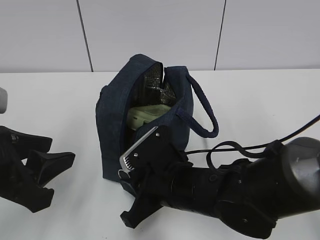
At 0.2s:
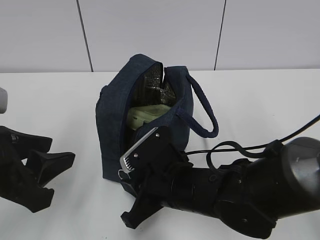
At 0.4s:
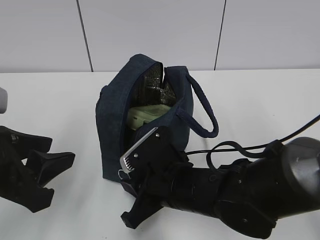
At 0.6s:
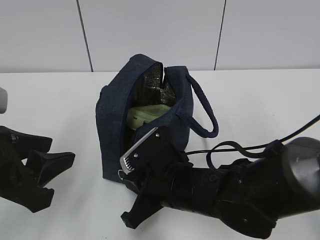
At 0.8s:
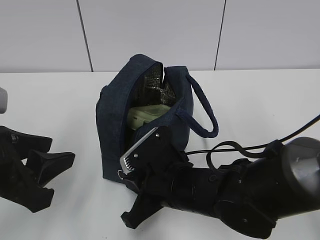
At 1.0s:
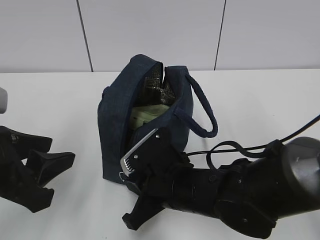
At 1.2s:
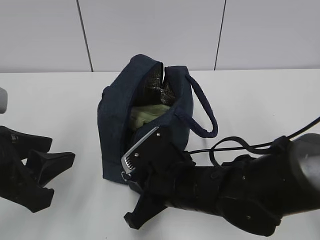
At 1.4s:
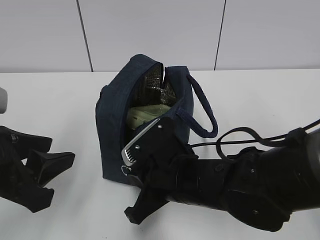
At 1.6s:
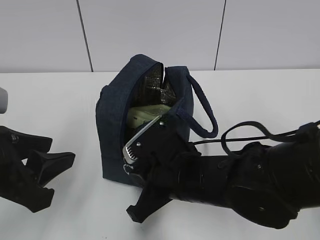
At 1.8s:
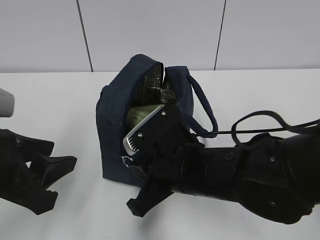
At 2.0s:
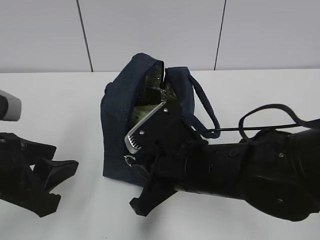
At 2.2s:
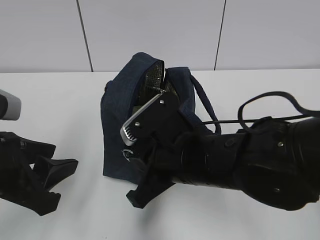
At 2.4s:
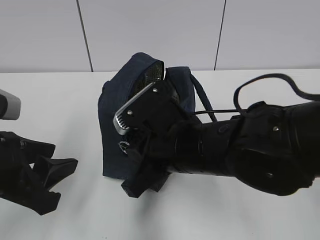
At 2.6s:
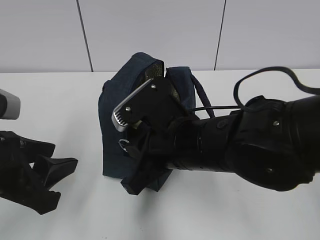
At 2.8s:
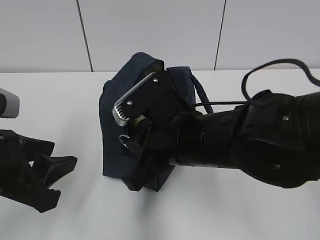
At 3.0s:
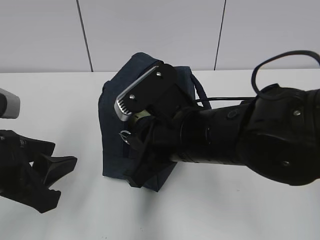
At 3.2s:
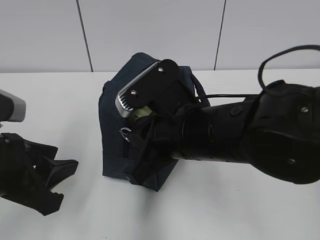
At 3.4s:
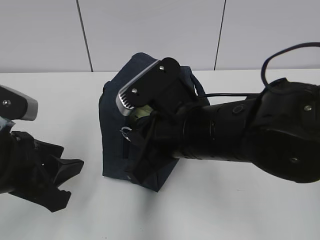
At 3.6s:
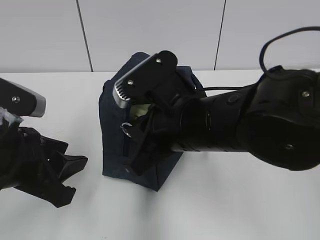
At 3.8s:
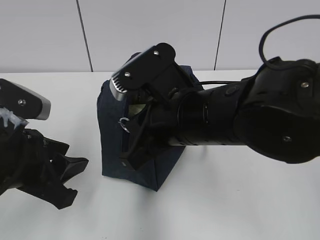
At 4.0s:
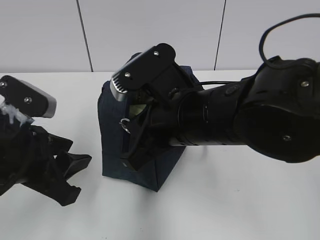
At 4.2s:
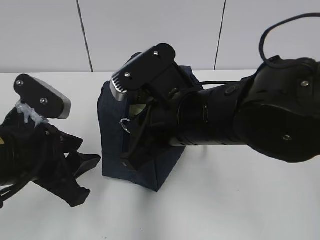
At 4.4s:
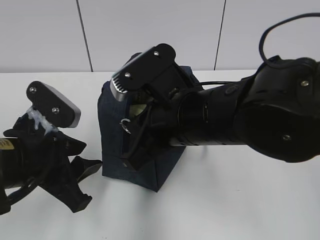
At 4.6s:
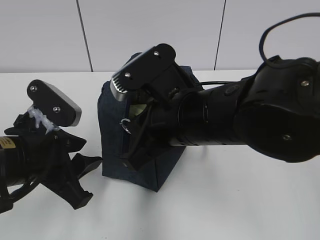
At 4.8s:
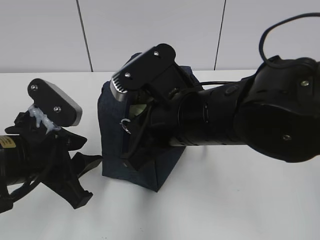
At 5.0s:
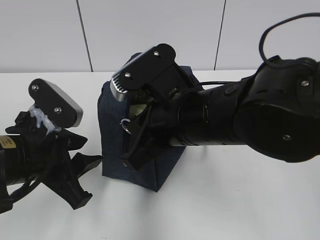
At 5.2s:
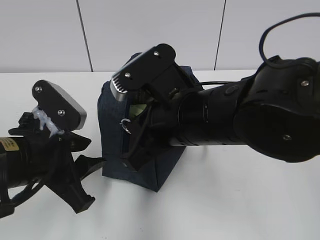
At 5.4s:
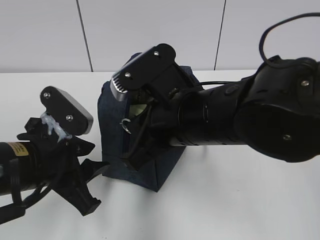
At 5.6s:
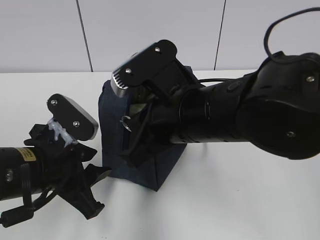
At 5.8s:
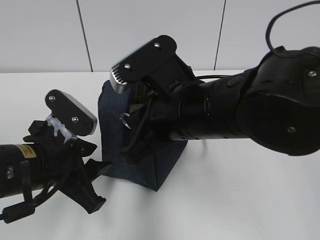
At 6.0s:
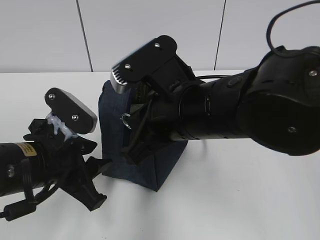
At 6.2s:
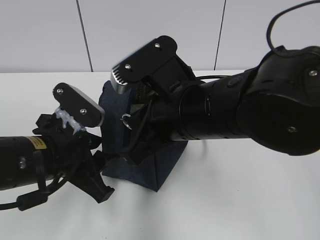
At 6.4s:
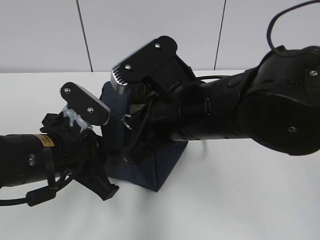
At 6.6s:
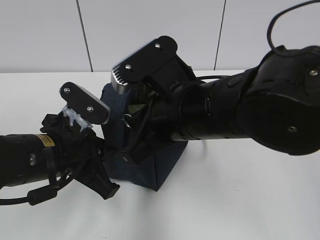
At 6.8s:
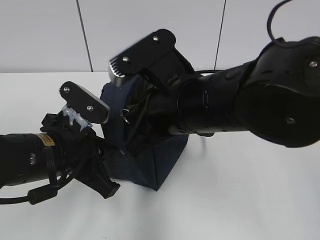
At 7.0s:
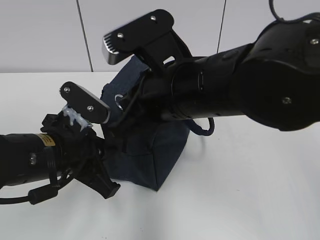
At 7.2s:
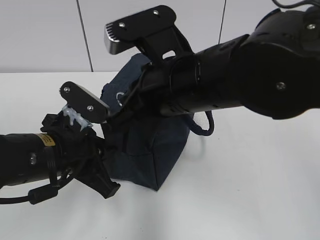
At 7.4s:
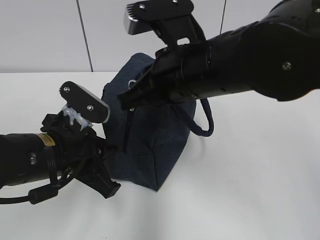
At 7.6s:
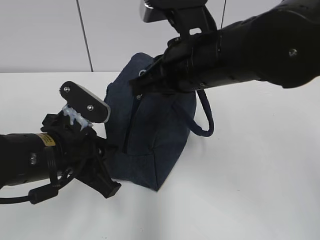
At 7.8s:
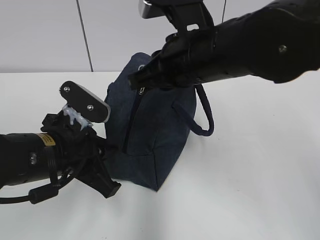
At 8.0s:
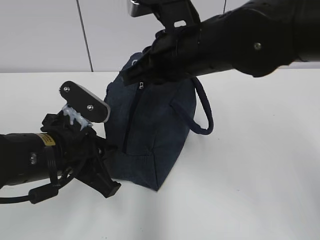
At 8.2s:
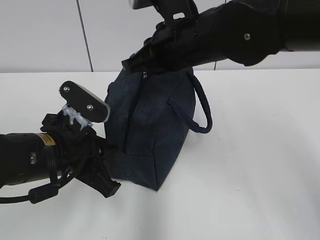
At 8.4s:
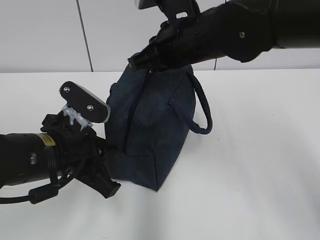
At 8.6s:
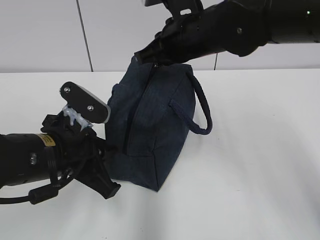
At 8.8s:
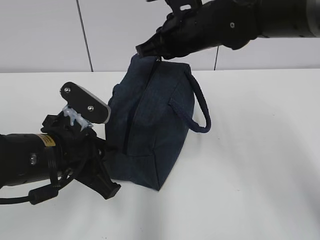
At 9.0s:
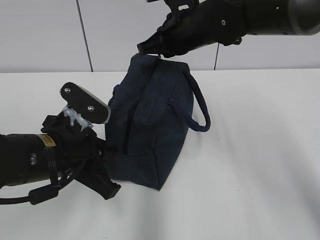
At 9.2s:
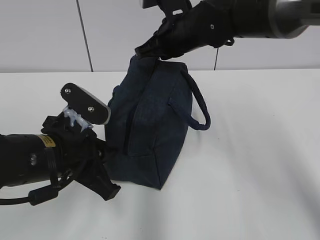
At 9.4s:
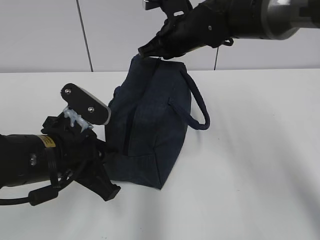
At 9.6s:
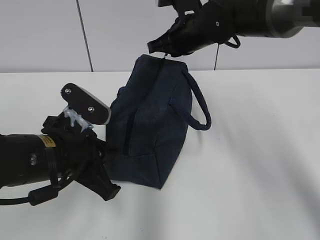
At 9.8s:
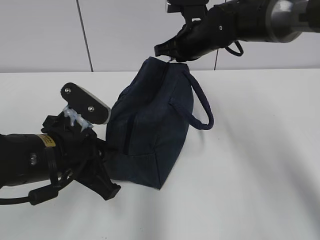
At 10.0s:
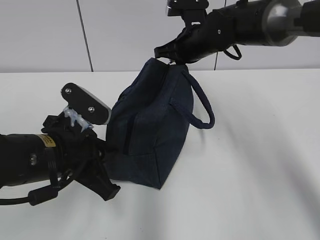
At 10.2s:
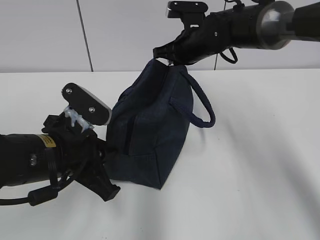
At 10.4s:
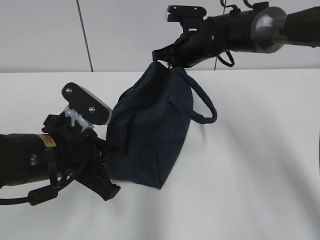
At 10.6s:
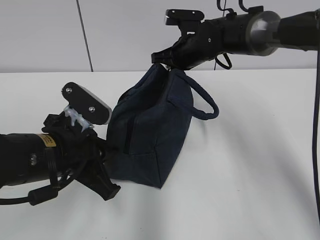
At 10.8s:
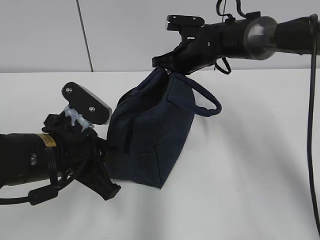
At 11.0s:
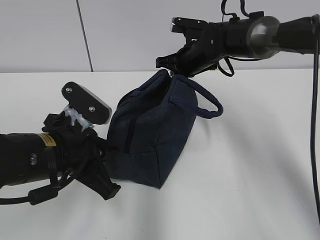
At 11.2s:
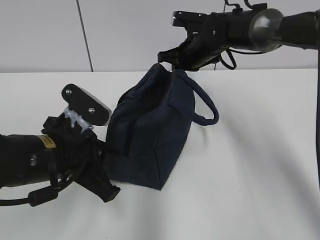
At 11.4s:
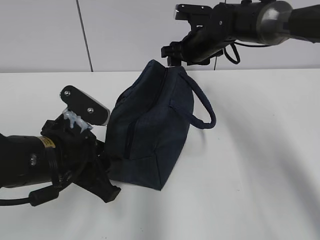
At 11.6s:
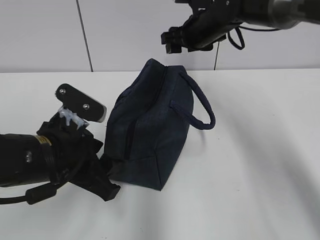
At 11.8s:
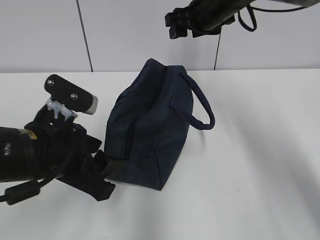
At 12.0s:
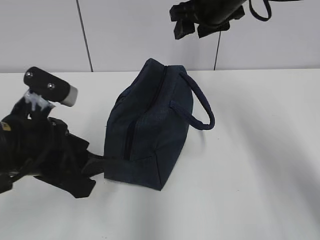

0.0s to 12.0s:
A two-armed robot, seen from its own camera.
0.0s to 1.6s: The grippers stay close to where they were, moving slightly.
1.6s to 3.0s: The right gripper heads upward, covering roughly 10 cm.
3.0s to 4.4s: The left gripper changes place by roughly 5 cm.
4.4s to 6.0s: There are only small adjustments of the grippers.
6.0s to 7.6s: The right gripper shifts by about 5 cm, while the left gripper closes.
7.6s to 9.0s: The right gripper shifts about 15 cm forward.
9.0s to 10.4s: The right gripper heads forward and downward, covering approximately 10 cm.
10.4s to 12.0s: The right gripper is displaced upward by some 10 cm, and opens; the left gripper ends up roughly 5 cm from where it was, and opens.

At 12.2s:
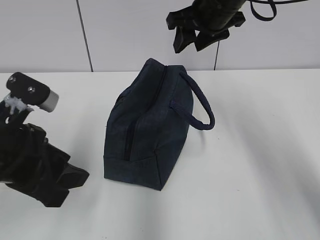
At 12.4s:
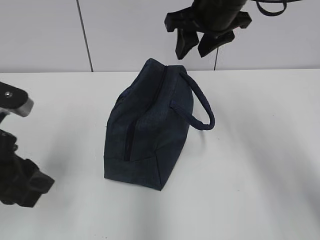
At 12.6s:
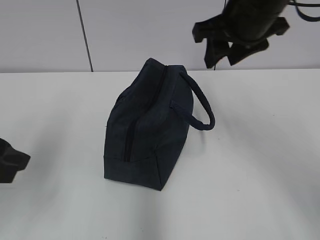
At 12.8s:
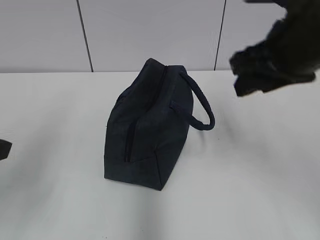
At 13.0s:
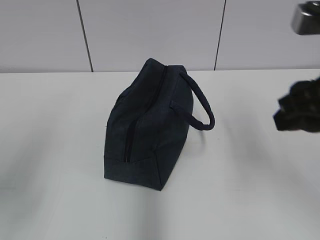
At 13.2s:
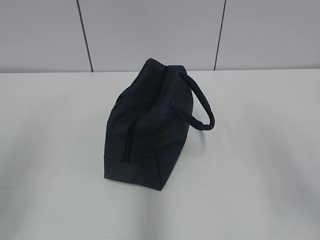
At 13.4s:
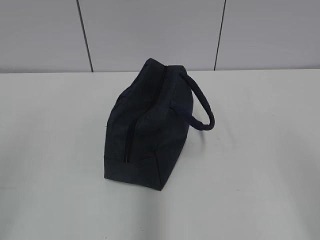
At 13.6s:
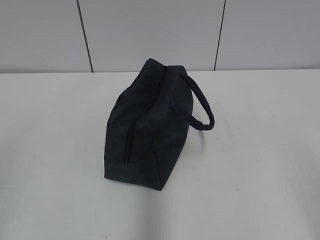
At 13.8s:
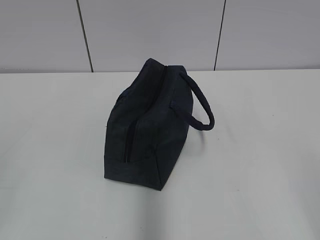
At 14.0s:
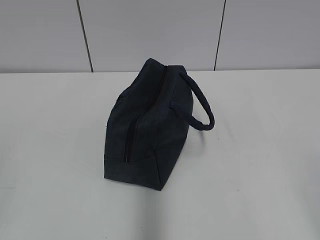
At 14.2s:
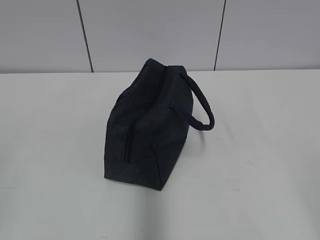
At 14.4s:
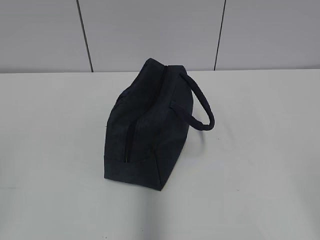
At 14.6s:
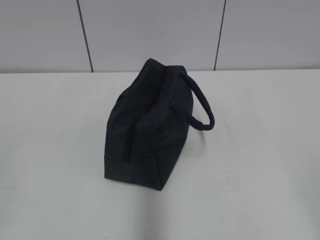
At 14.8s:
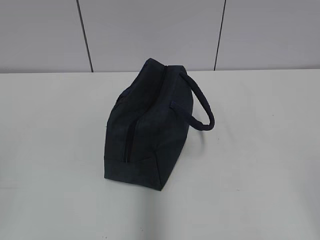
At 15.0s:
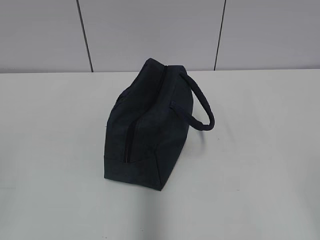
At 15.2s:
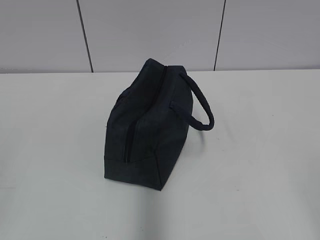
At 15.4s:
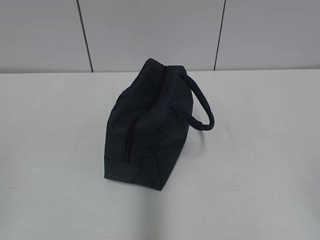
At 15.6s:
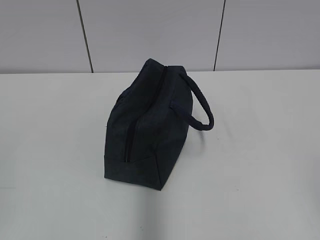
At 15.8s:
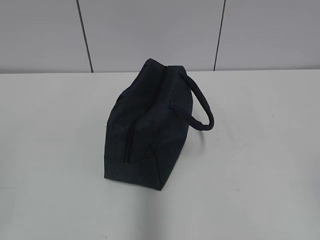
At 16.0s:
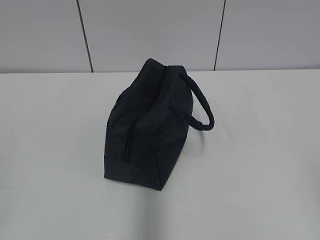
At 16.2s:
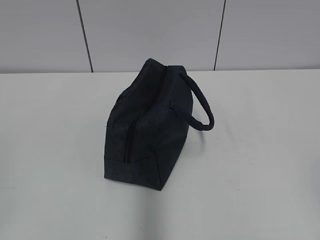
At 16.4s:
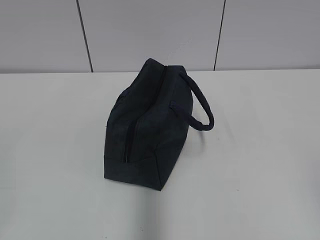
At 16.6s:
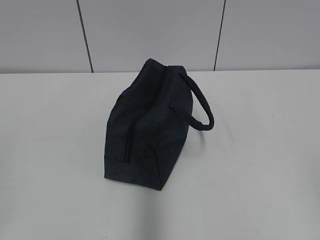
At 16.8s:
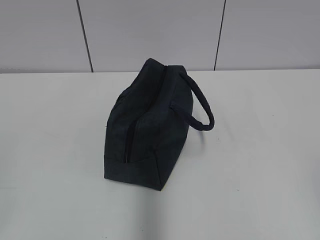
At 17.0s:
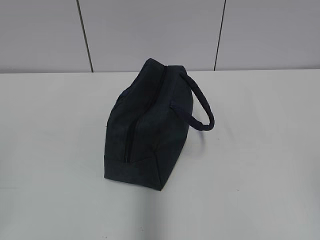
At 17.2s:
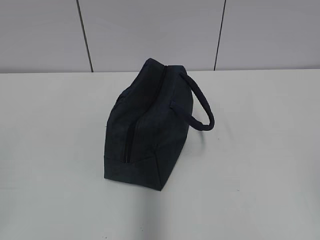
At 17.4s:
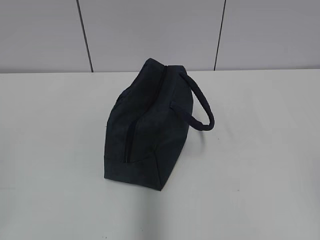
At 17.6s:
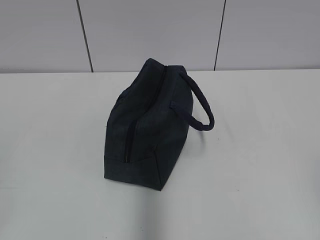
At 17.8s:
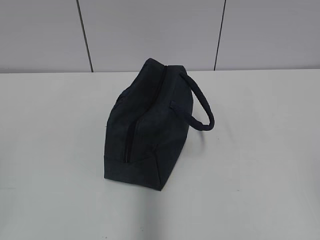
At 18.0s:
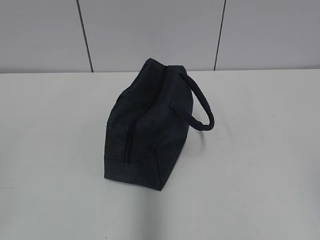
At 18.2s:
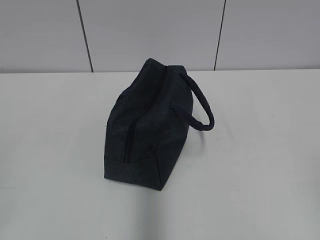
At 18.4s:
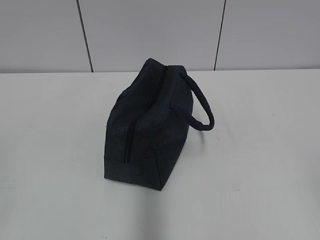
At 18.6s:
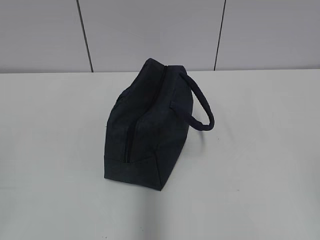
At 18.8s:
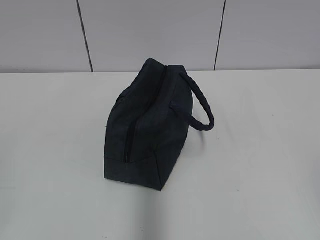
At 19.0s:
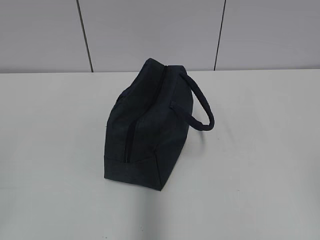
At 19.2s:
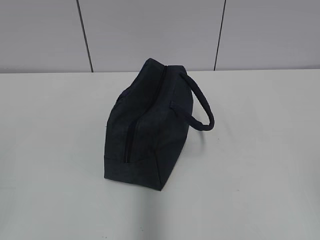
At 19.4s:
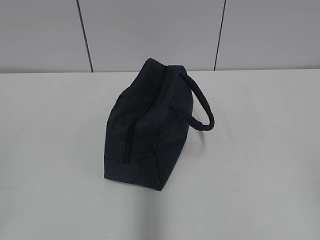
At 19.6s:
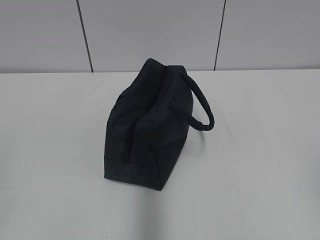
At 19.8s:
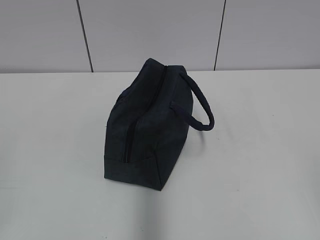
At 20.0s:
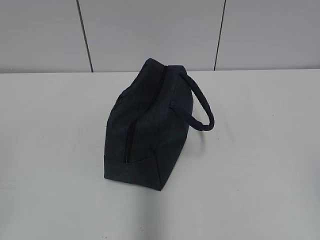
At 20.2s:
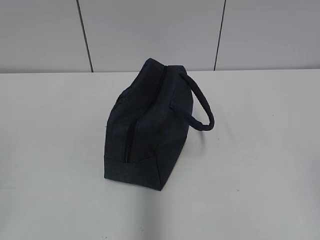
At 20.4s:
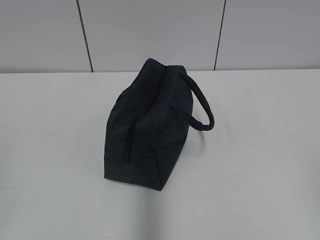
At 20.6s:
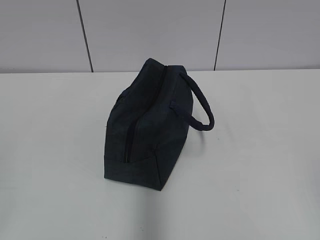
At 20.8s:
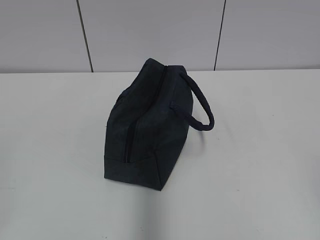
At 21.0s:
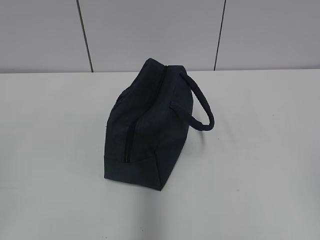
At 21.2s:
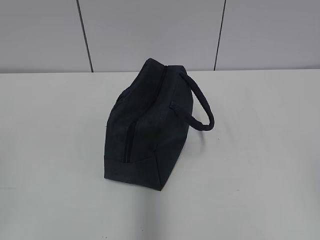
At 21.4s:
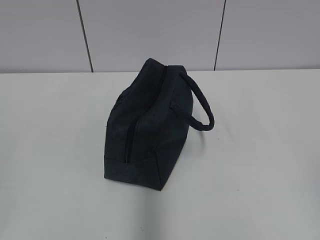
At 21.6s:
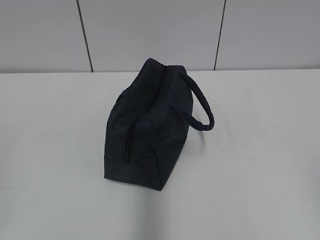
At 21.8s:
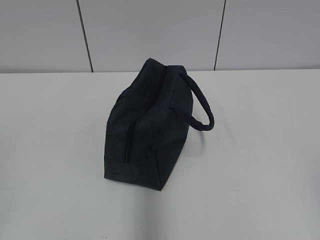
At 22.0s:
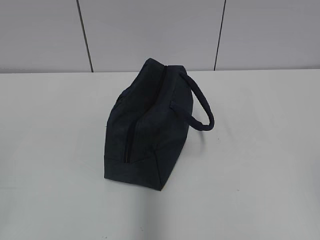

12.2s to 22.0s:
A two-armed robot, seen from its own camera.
12.2s to 13.6s: The right gripper goes approximately 40 cm backward and to the right. The left gripper shifts roughly 20 cm backward, to the left and upward.
16.4s to 22.0s: Neither gripper changes place.

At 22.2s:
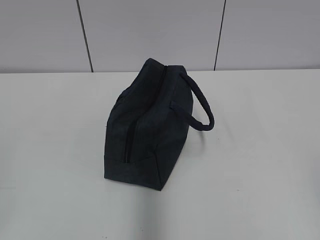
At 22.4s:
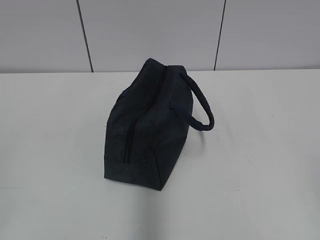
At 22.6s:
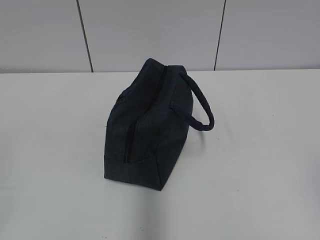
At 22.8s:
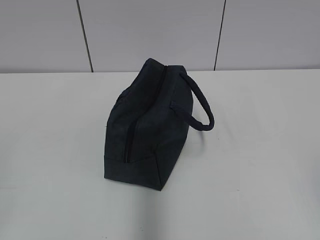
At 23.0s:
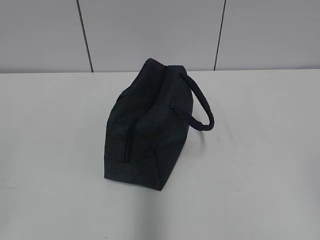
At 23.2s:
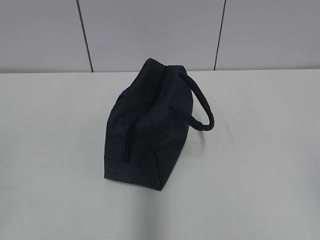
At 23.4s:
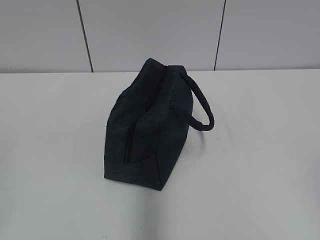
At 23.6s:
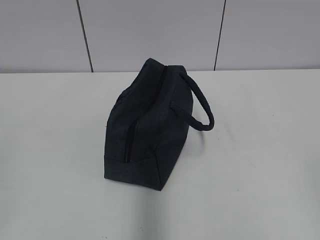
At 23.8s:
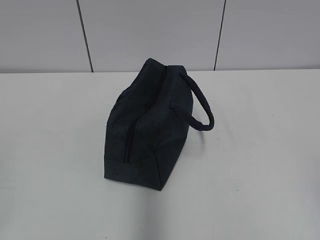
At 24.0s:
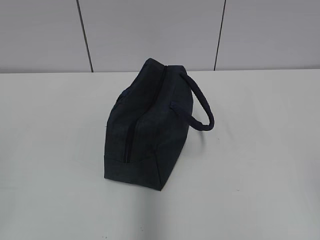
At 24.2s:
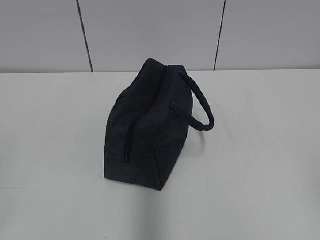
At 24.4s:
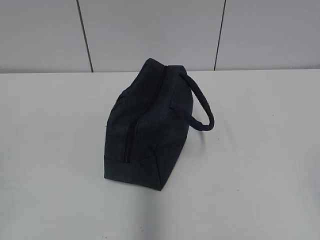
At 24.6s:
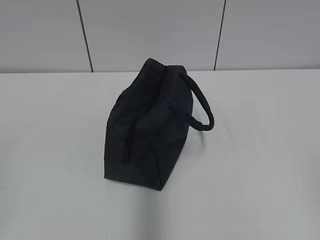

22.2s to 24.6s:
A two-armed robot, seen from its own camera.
22.2s to 24.6s: The two grippers keep their place.
